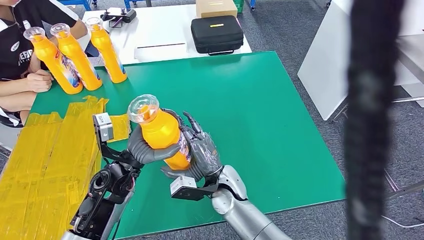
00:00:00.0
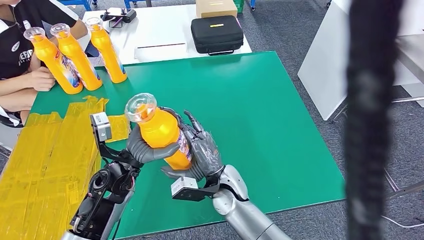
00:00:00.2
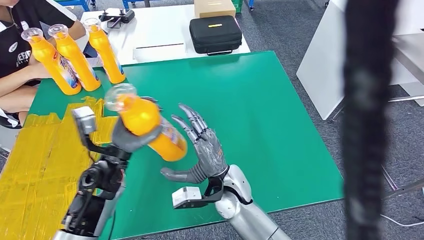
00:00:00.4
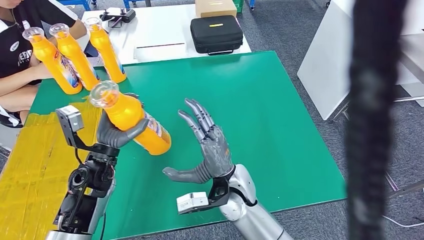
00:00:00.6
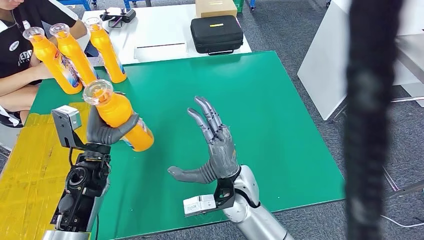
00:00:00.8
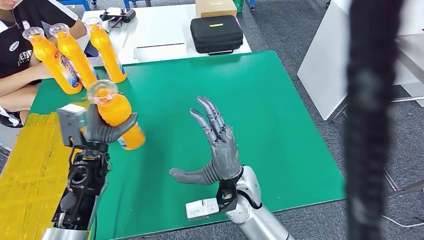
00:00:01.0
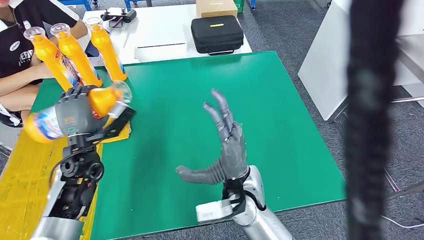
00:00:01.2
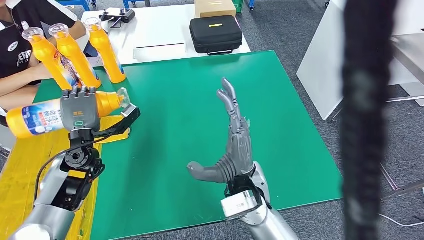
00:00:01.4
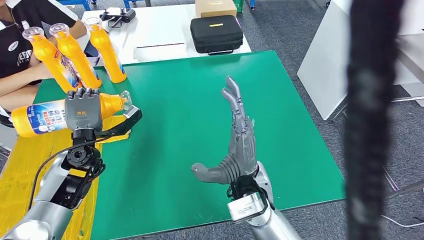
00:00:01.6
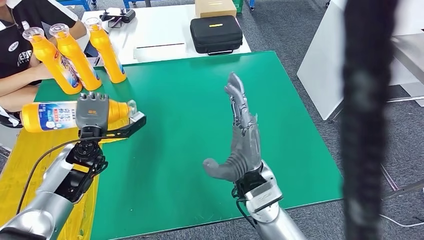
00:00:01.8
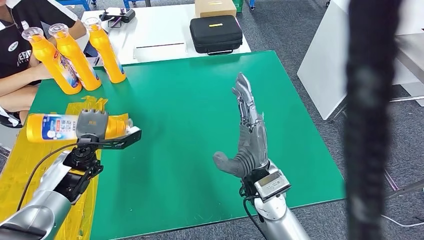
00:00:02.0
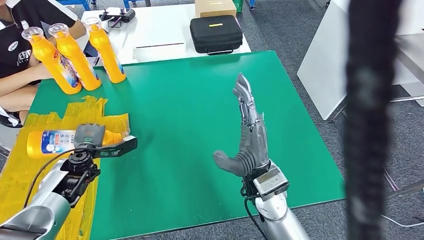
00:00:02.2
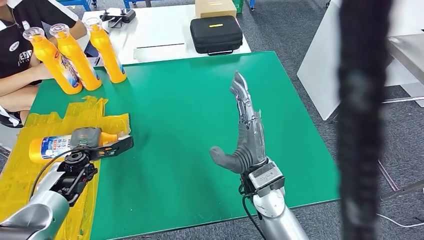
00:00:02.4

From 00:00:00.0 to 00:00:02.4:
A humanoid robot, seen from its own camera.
Step, from 00:00:00.0 to 00:00:02.4: Flip the fast-moving consumer goods bottle to the front side.

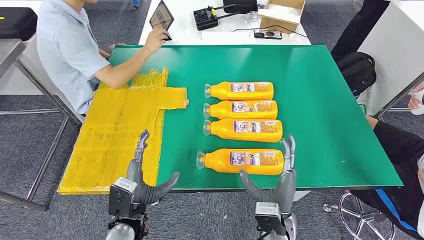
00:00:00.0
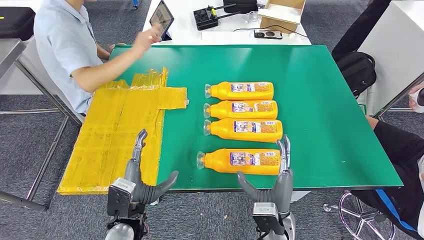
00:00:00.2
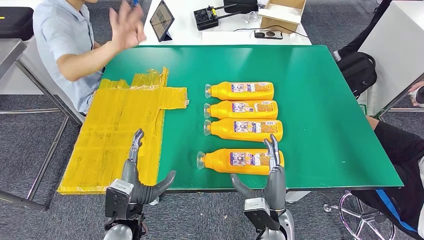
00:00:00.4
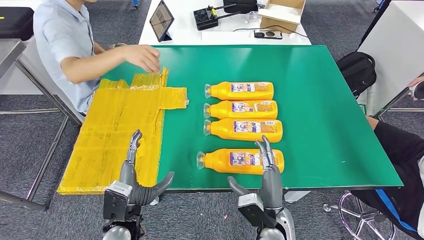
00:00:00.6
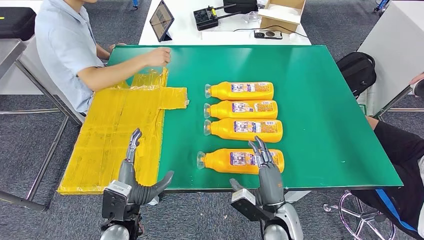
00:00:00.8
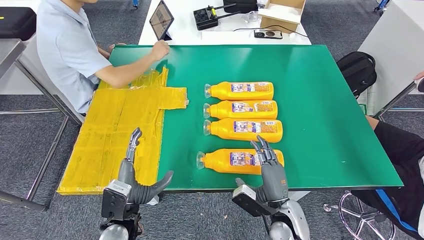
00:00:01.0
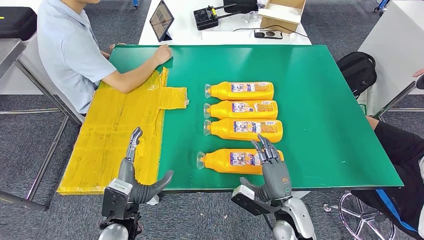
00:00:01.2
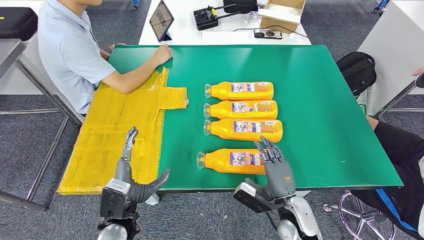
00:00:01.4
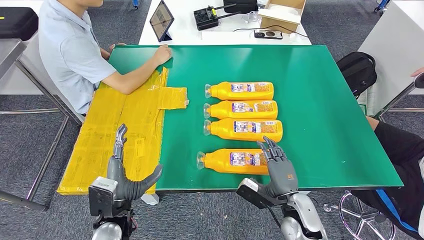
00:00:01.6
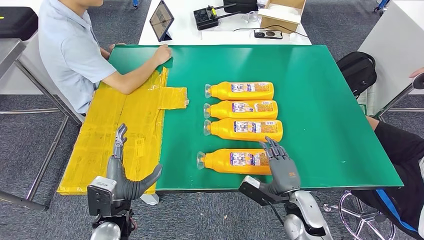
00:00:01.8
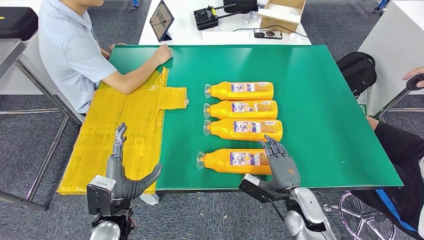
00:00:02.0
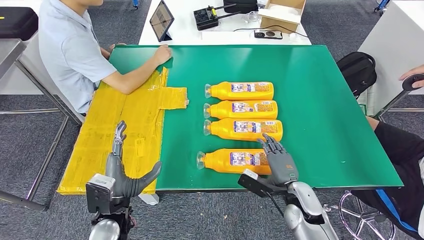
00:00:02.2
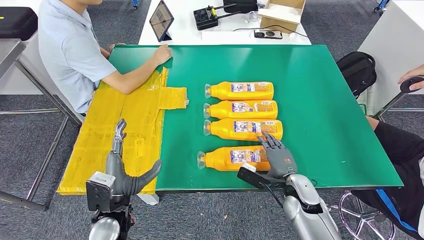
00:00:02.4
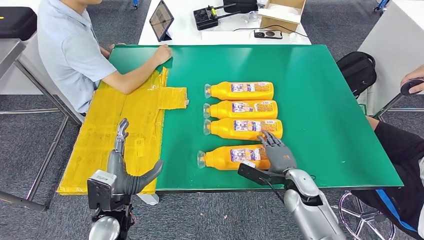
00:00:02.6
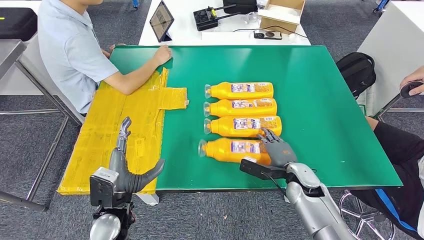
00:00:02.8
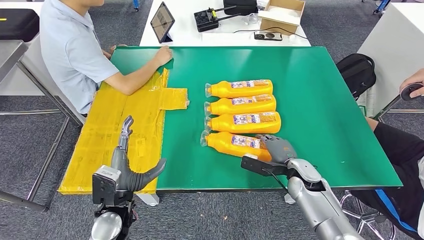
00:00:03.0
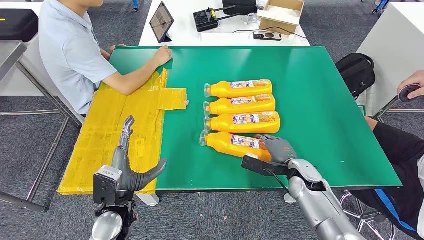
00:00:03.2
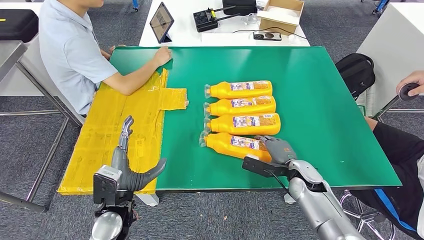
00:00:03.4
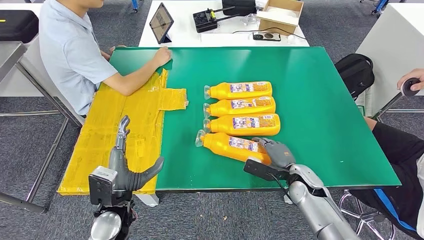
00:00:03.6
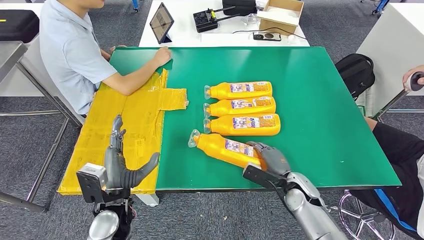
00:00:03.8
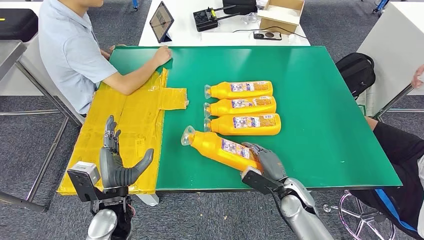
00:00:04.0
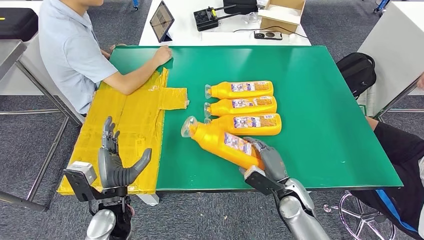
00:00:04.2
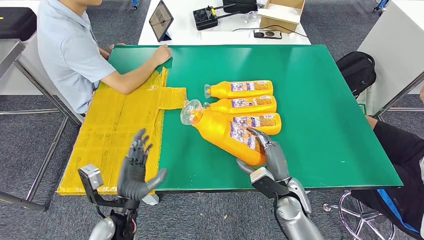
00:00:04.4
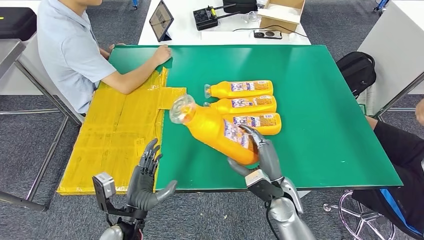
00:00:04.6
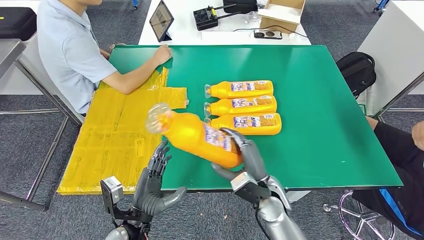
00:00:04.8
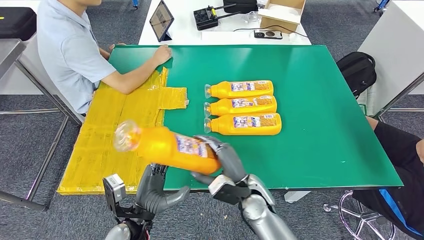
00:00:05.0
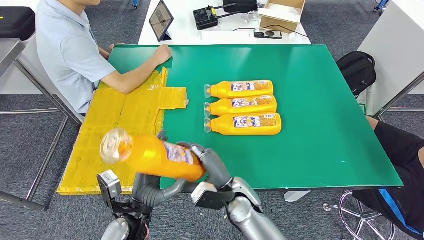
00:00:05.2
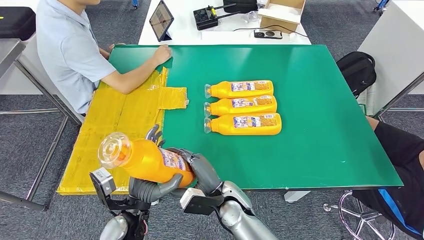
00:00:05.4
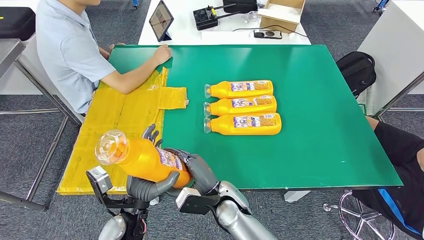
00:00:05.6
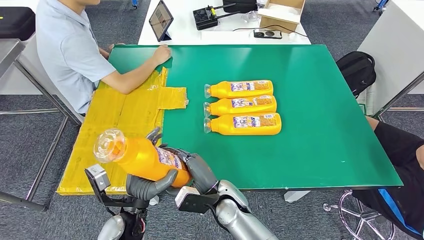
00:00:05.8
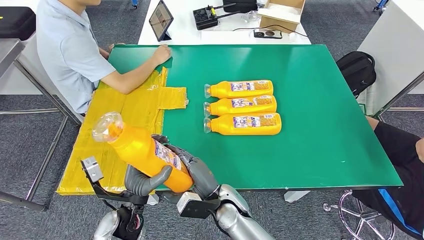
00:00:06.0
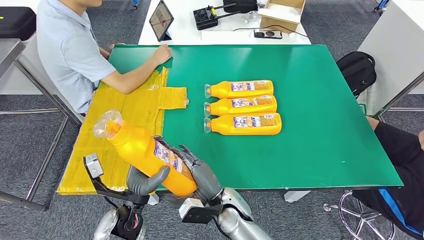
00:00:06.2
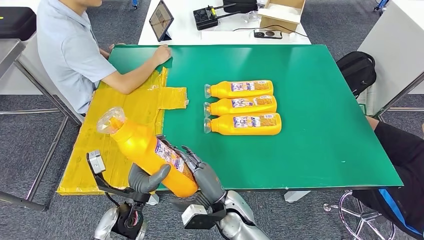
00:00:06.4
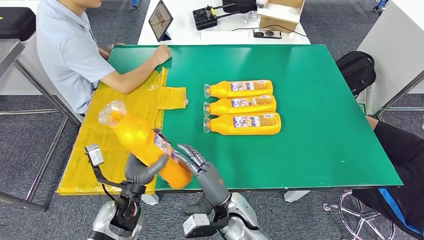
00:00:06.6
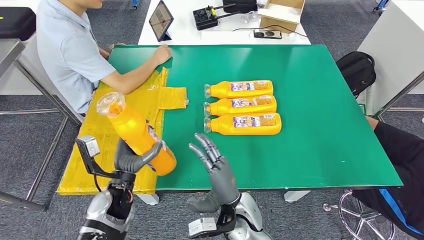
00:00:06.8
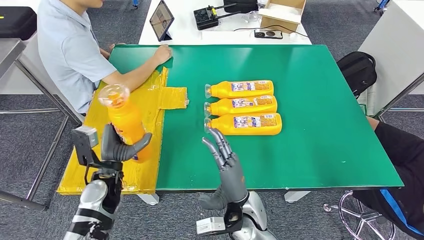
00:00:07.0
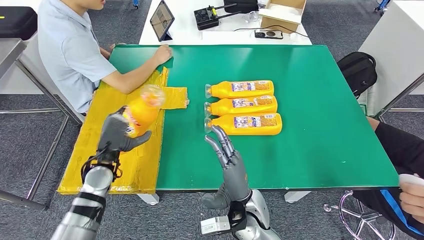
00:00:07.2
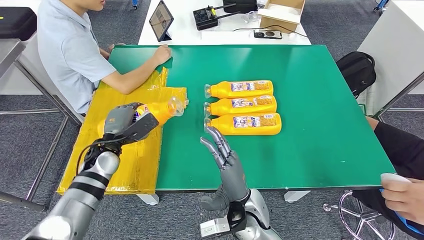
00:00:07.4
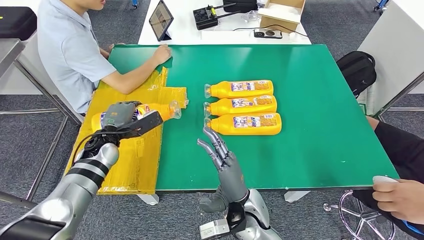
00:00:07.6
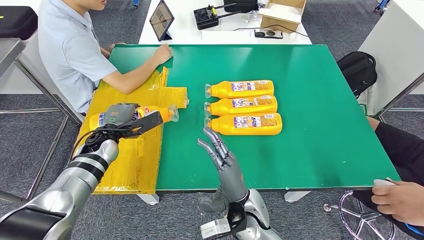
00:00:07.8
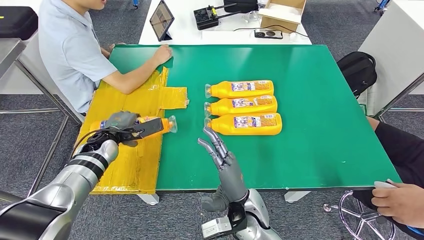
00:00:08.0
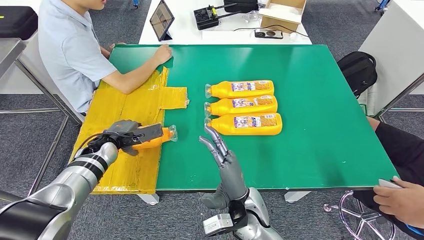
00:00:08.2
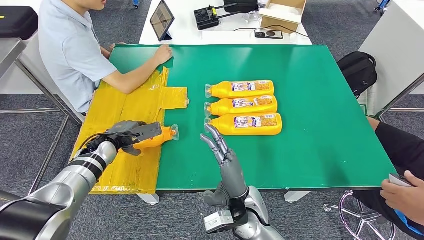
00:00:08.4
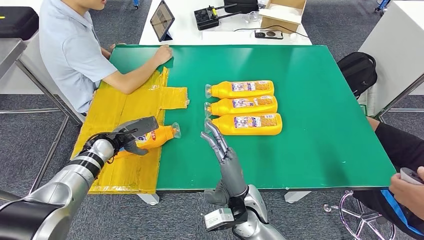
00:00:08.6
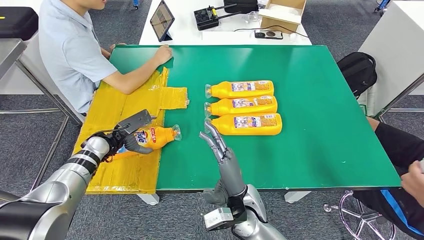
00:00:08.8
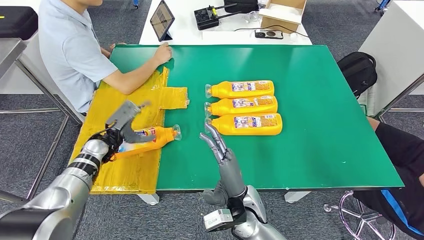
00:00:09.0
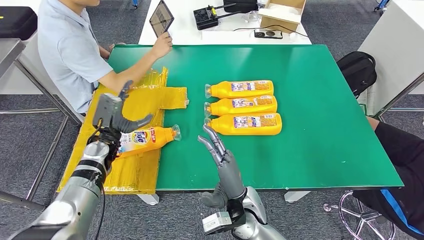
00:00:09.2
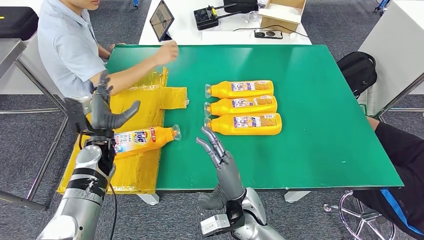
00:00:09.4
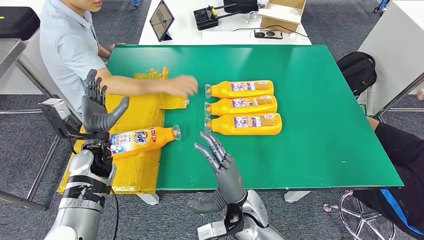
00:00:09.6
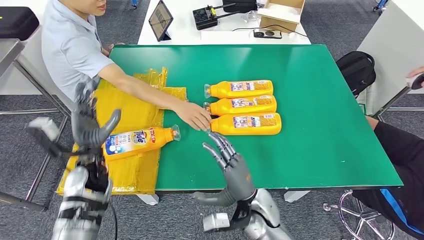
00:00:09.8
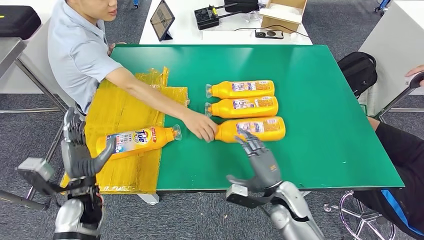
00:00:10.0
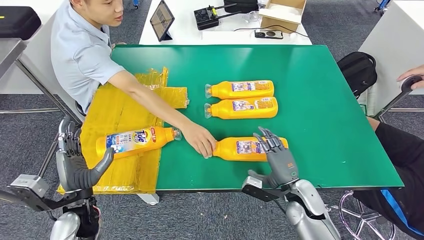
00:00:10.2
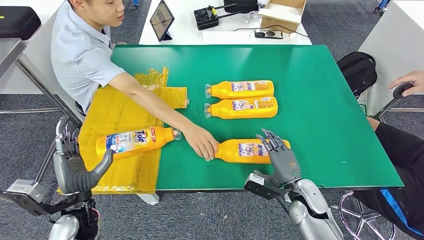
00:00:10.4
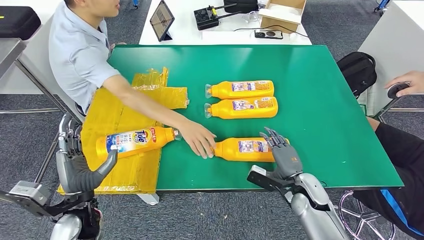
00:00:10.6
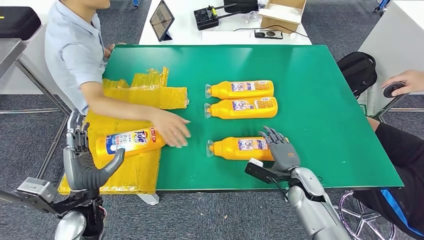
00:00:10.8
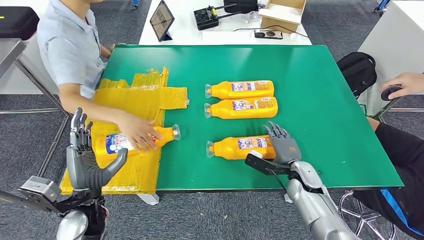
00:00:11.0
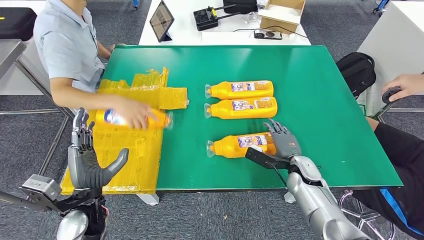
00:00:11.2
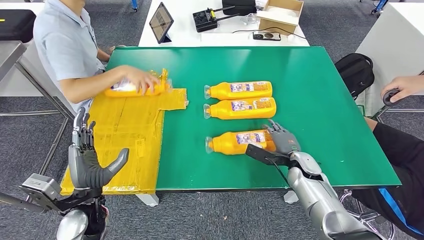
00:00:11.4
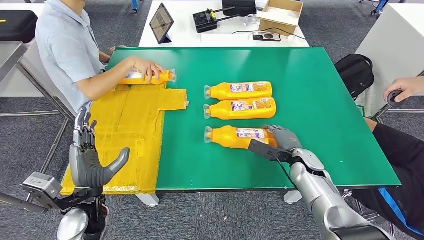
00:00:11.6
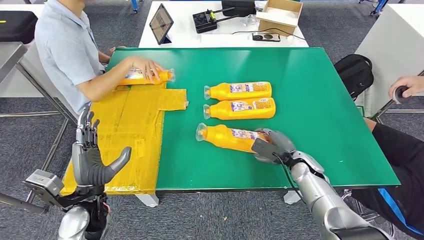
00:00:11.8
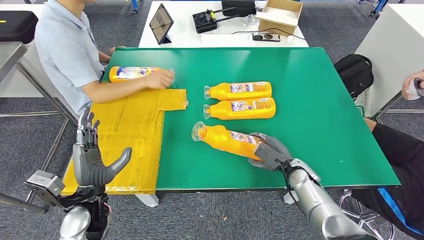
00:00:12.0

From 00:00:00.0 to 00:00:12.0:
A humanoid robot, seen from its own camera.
Step, from 00:00:00.0 to 00:00:04.6: Take the fast-moving consumer goods bottle from the table.
Step, from 00:00:05.2 to 00:00:09.8: Flip the fast-moving consumer goods bottle to the front side.
From 00:00:01.6 to 00:00:03.0: The right hand is displaced forward by about 10 cm.
From 00:00:04.4 to 00:00:06.0: The right hand goes about 15 cm to the left.
From 00:00:06.0 to 00:00:07.6: The right hand changes place by some 5 cm. Meanwhile the left hand goes approximately 20 cm forward and to the left.

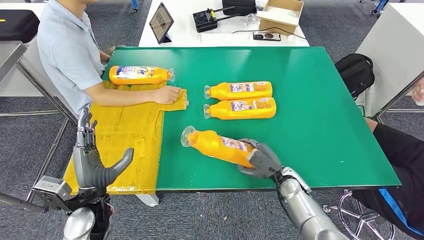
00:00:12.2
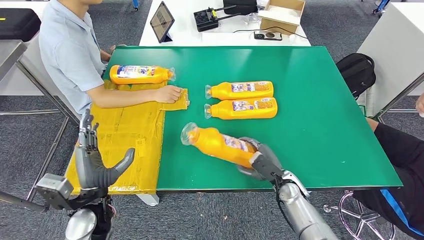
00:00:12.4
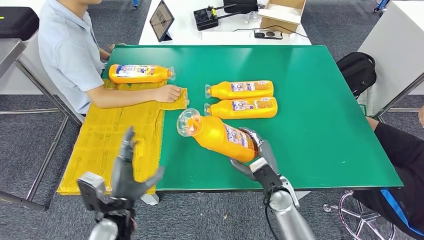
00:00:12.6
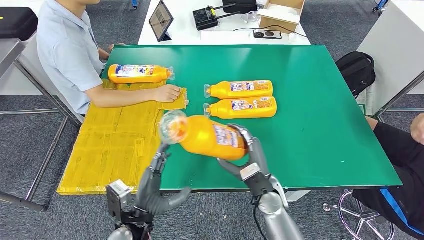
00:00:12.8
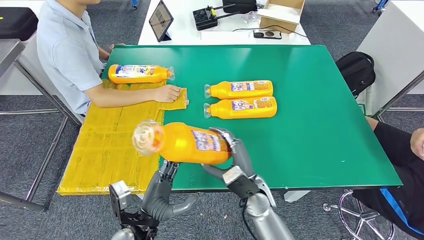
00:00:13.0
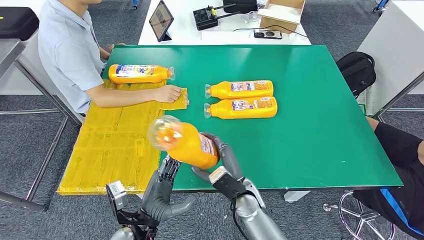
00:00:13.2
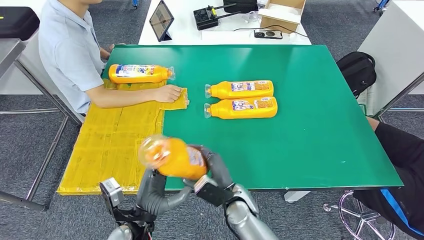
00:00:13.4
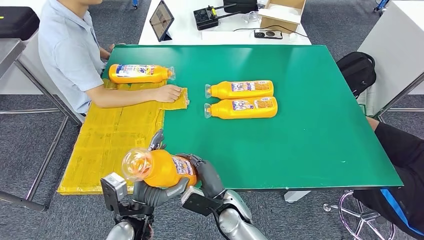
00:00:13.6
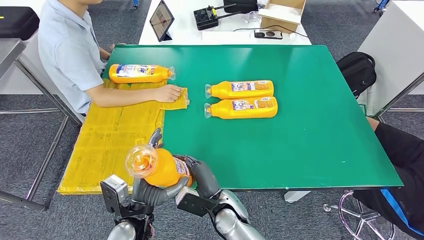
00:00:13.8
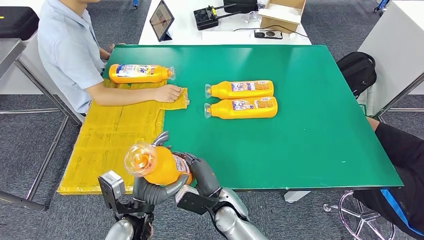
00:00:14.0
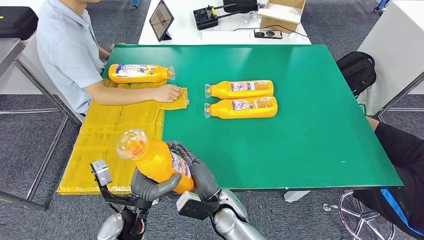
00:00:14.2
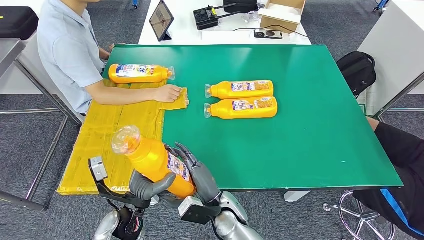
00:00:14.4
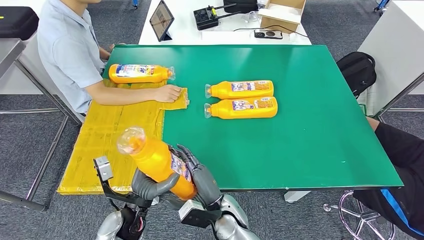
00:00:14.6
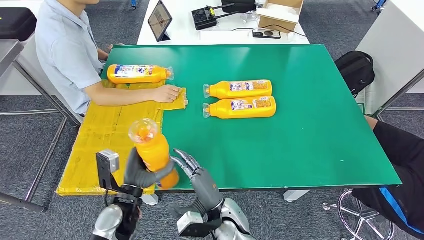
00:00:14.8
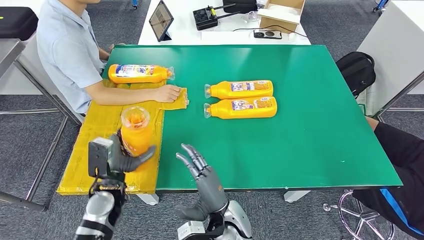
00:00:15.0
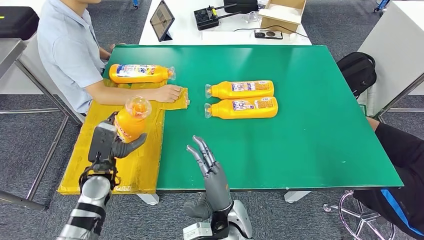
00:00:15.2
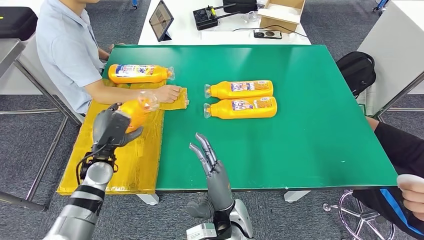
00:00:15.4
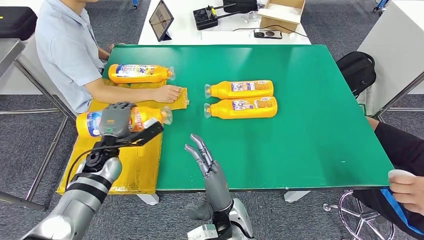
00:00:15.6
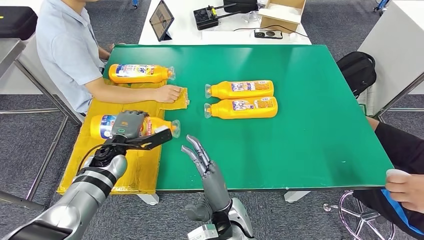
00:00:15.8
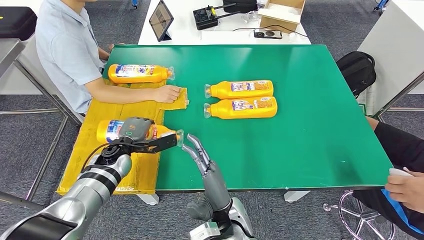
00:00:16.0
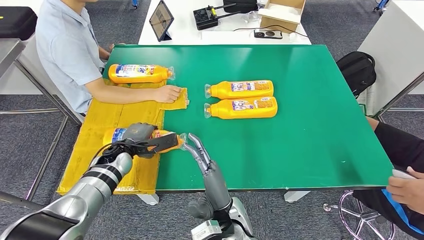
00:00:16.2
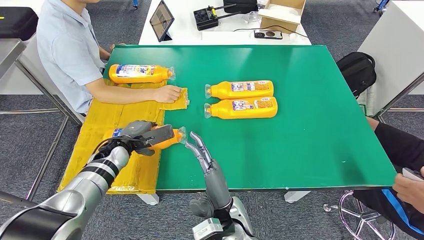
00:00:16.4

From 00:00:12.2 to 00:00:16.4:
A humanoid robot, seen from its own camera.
From 00:00:13.6 to 00:00:15.0: The left hand is displaced forward and to the left by some 10 cm.
From 00:00:15.0 to 00:00:16.4: The left hand travels forward by about 15 cm.
